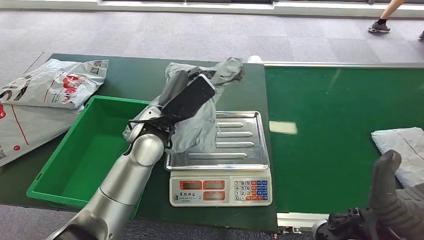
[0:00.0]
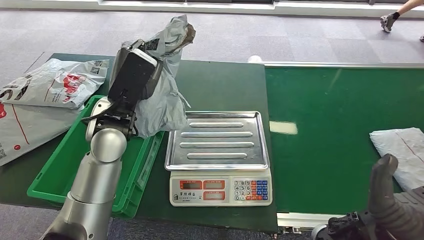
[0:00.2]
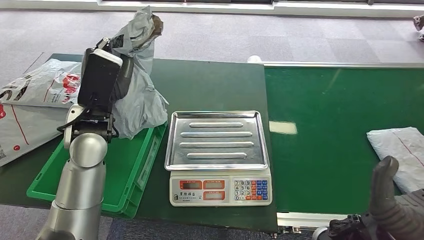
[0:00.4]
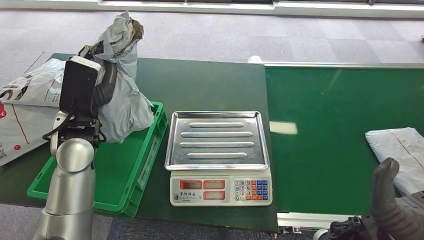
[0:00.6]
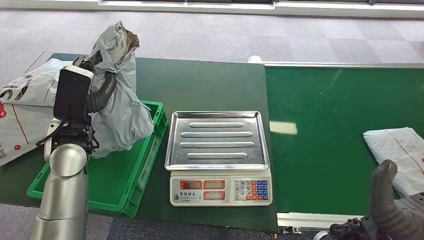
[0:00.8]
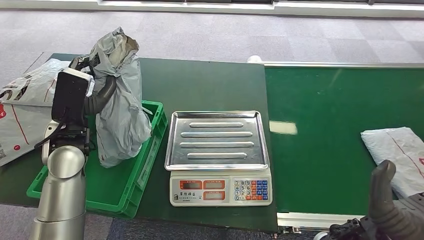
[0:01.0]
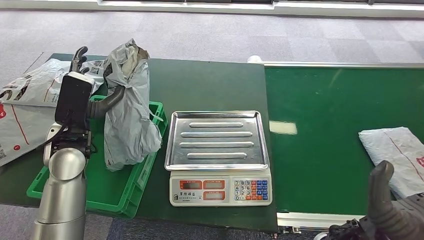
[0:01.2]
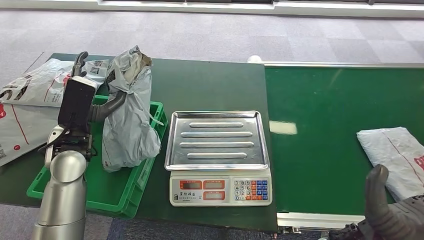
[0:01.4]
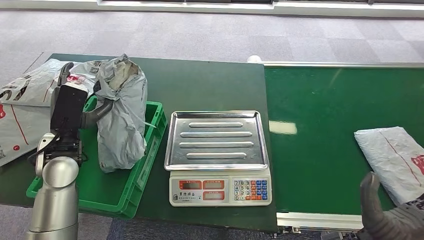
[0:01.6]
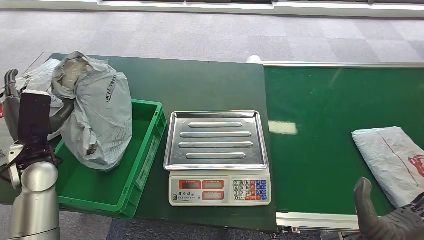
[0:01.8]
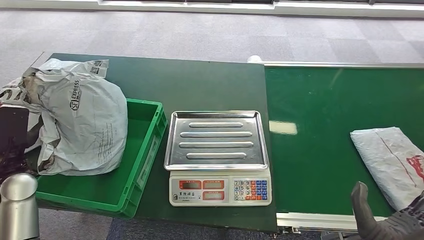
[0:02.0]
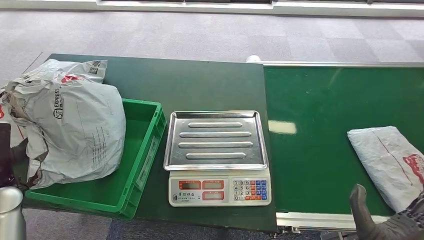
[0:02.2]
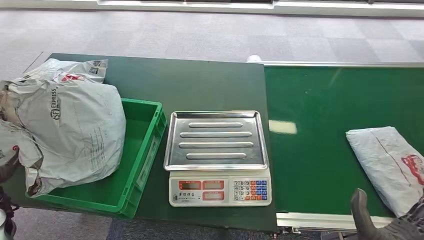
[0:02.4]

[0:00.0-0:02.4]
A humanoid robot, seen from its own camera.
Step, 0:00.4 to 0:02.2: Place the package into the parcel locker.
